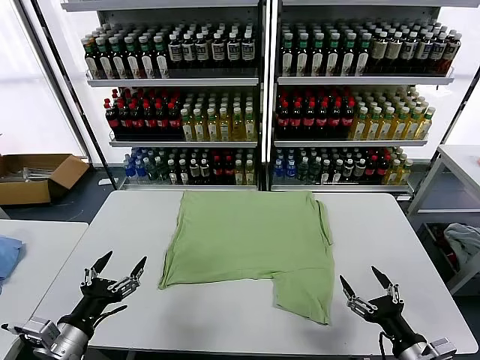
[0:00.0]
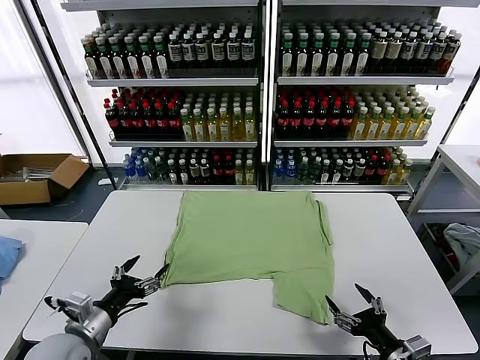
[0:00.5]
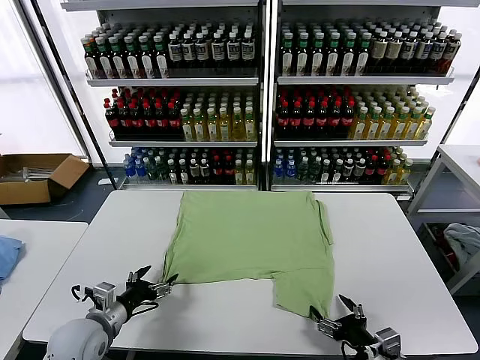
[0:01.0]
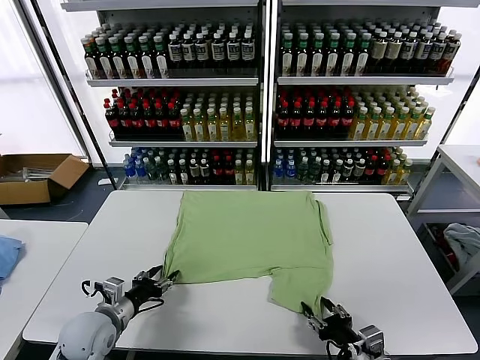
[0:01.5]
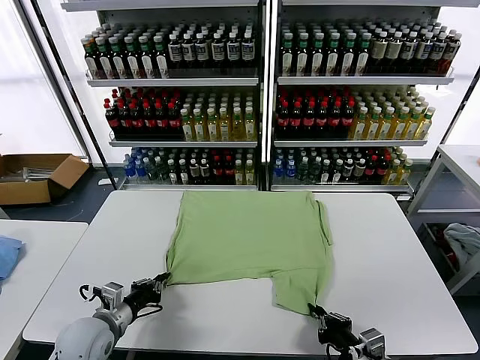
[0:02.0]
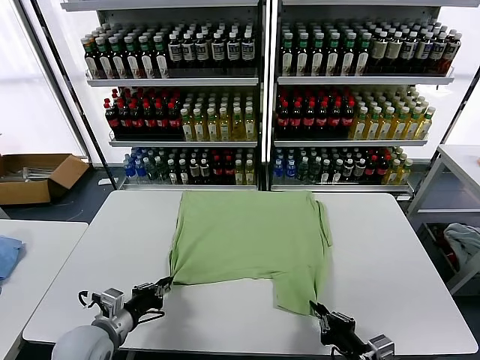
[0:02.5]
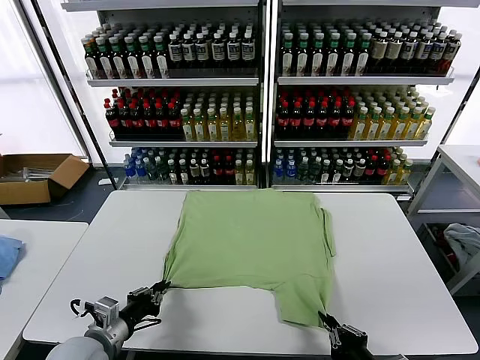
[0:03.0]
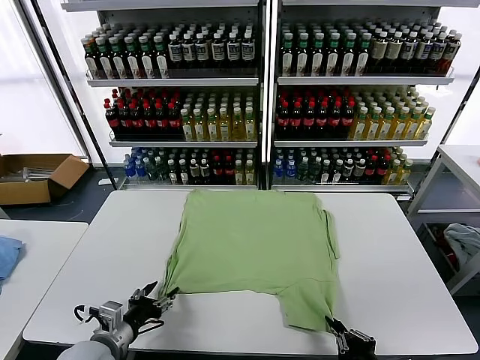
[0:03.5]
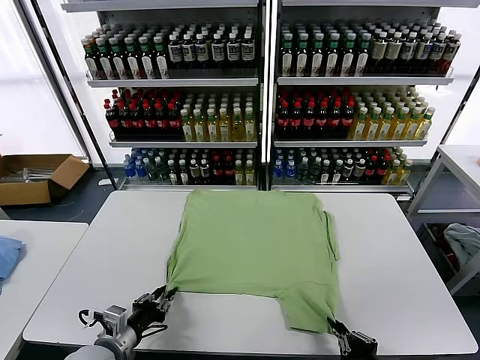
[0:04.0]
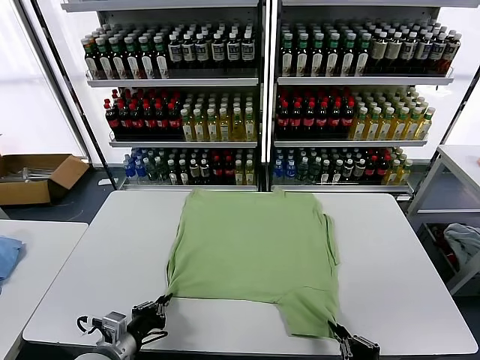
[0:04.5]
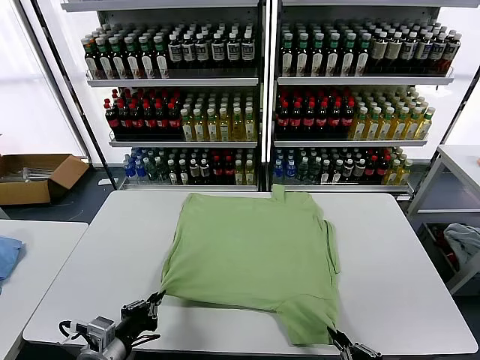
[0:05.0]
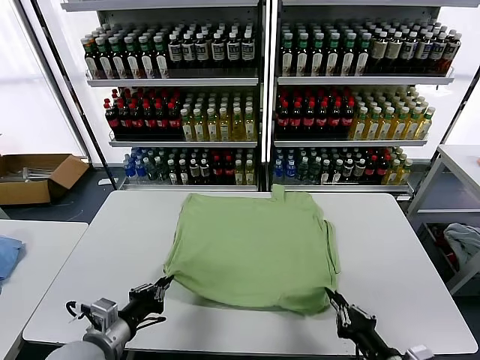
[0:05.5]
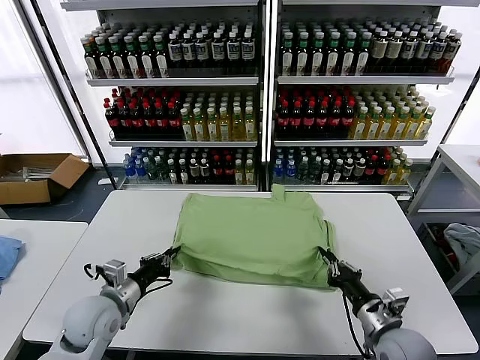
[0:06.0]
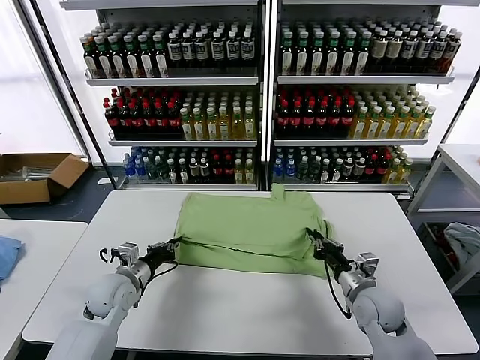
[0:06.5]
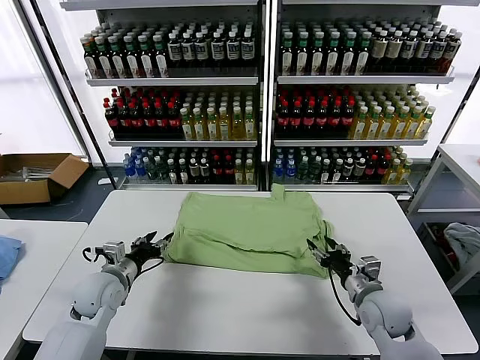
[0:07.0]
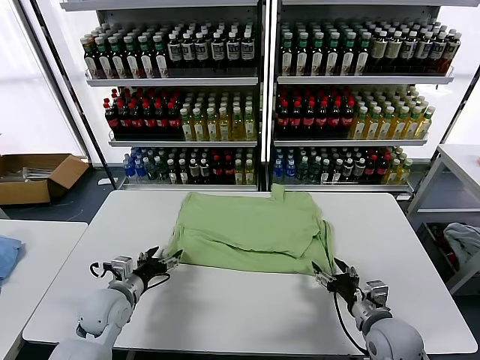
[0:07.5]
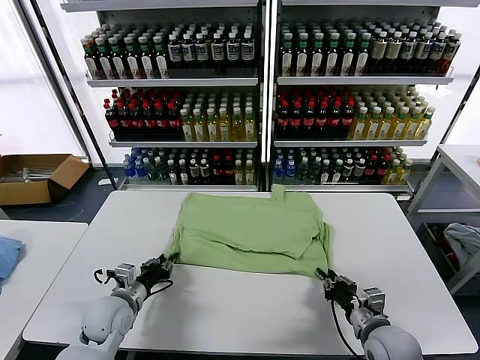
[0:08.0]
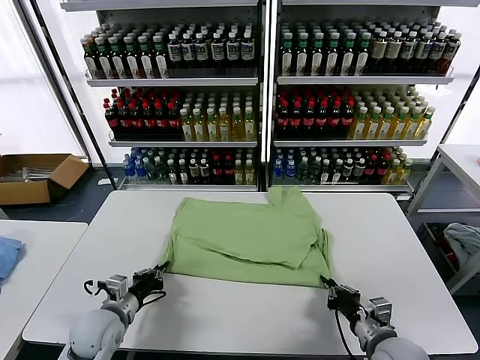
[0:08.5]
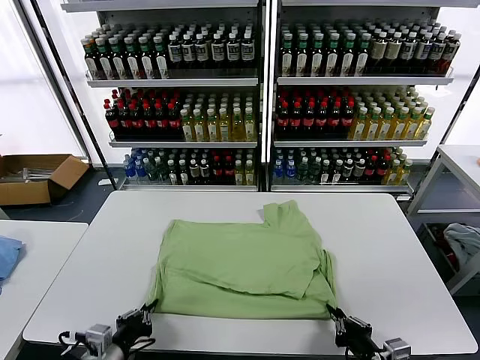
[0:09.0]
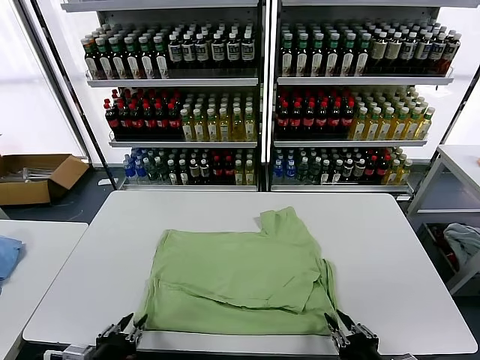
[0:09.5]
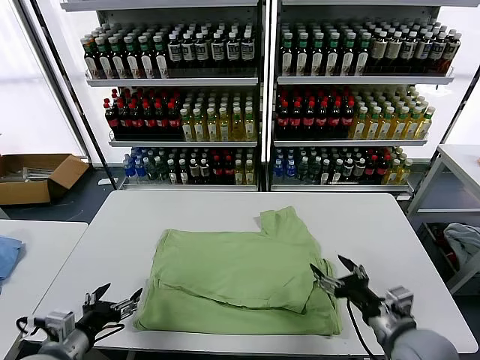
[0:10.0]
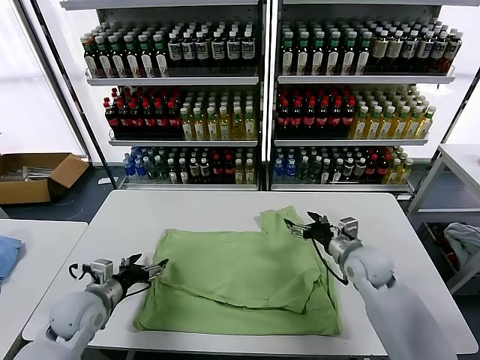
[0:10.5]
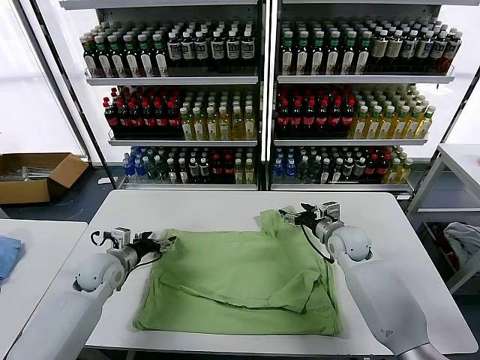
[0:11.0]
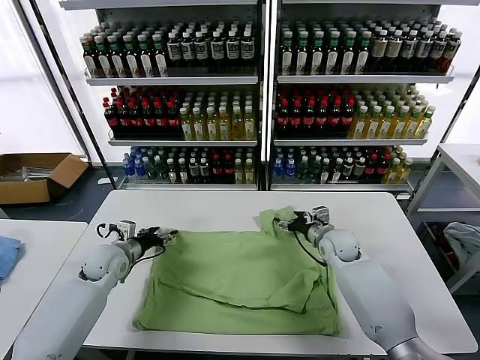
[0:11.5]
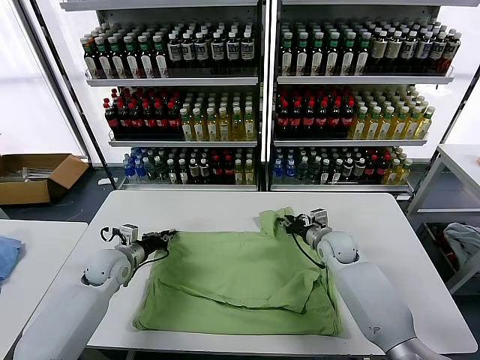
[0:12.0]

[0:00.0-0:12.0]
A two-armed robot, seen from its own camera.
Task of the whole recording: fold and organize the clothes.
Step, 0:00.0 to 0:04.0: use both grippers simultaneously to clamp the lower edge of the clothing fabric.
Step, 0:04.5 to 0:07.0: use both grippers to drag the lower edge of the fabric forward and fold it over the upper edge.
Step, 0:07.5 to 0:09.5: Drag the clothes downward with both gripper.
0:02.0 to 0:04.0: The two grippers go some 5 cm backward. The left gripper opens, then closes again.
0:04.0 to 0:06.0: The right gripper is displaced forward by approximately 15 cm. The left gripper is displaced forward by roughly 10 cm.
0:06.0 to 0:08.0: The right gripper moves roughly 5 cm forward and comes back, and opens, then closes again, while the left gripper moves downward, roughly 5 cm, and opens and closes again.
0:08.0 to 0:10.0: The left gripper heads backward and upward, covering some 15 cm, and opens its fingers. The right gripper is displaced upward by about 5 cm, reaches roughly 15 cm backward, then returns, and opens its fingers.
0:10.0 to 0:12.0: The two grippers go some 25 cm forward. The left gripper closes its fingers, while the right gripper closes up.

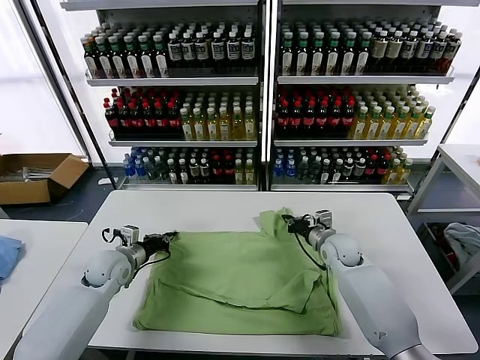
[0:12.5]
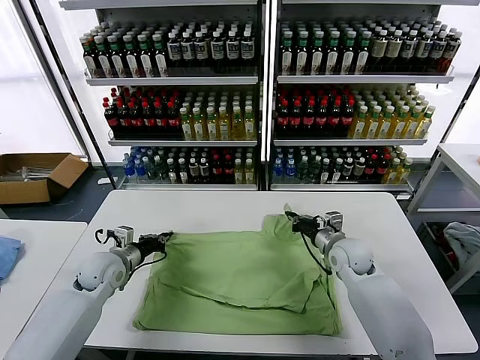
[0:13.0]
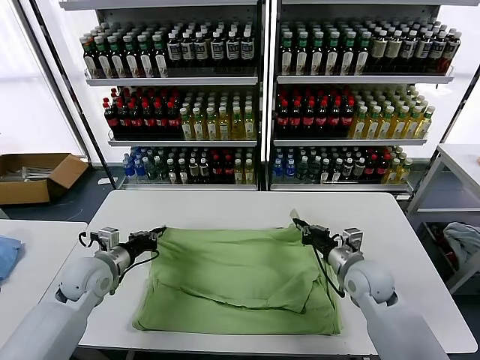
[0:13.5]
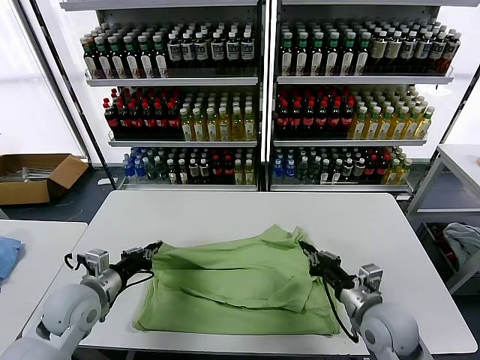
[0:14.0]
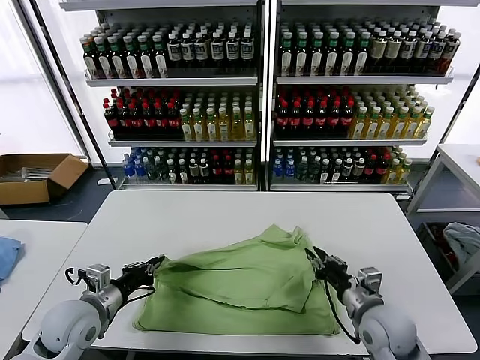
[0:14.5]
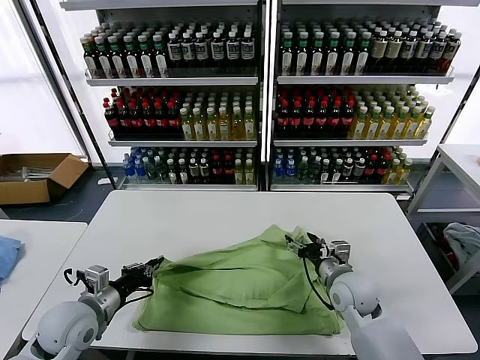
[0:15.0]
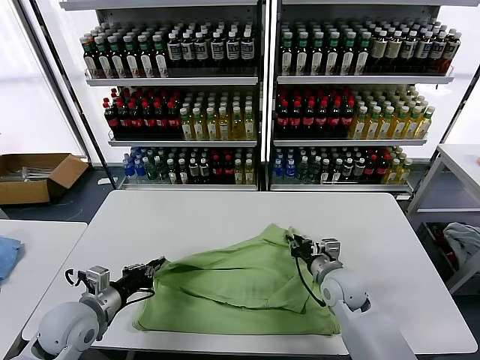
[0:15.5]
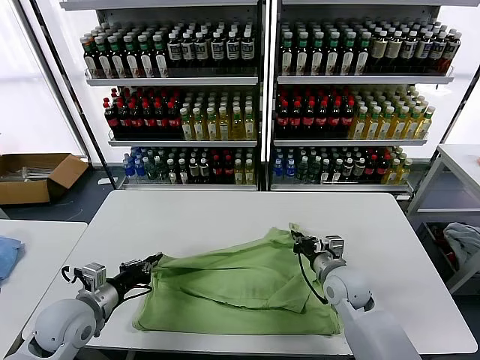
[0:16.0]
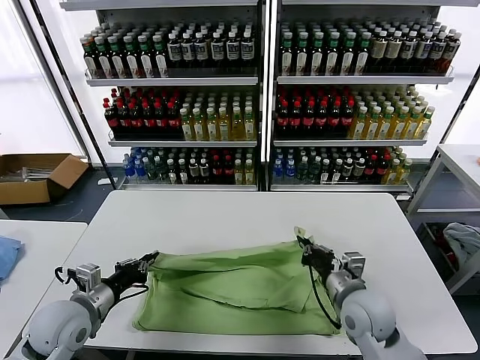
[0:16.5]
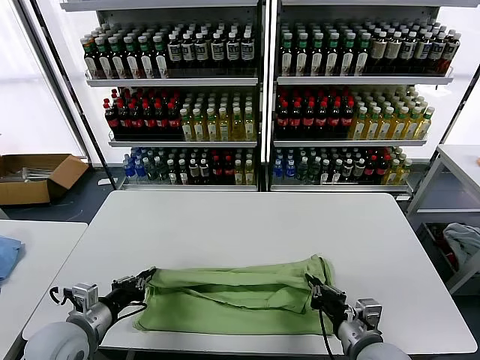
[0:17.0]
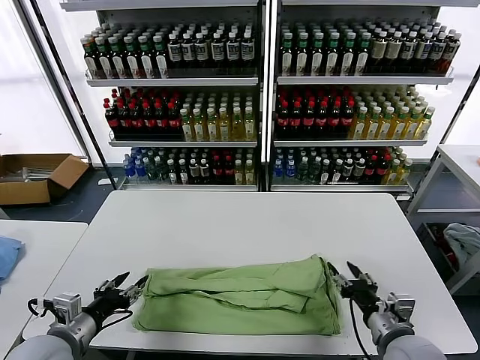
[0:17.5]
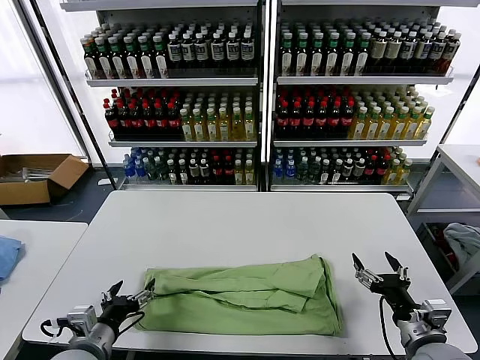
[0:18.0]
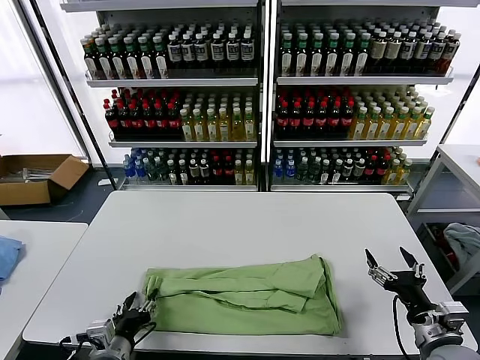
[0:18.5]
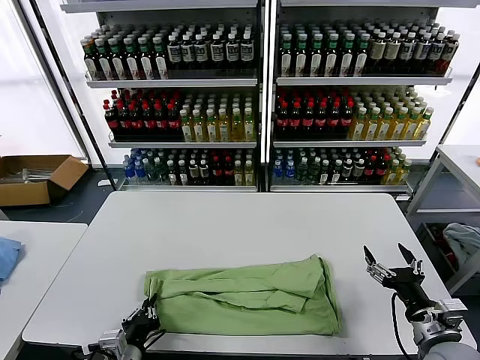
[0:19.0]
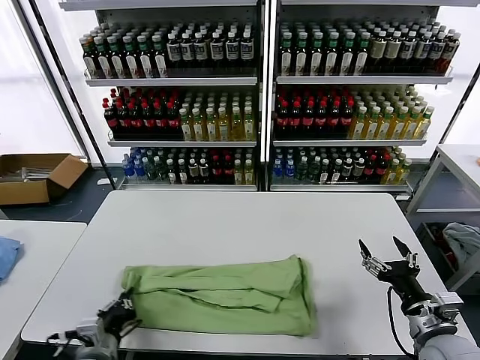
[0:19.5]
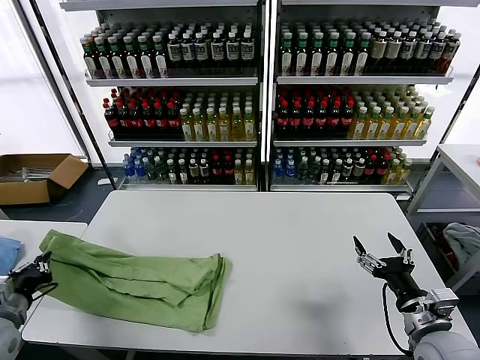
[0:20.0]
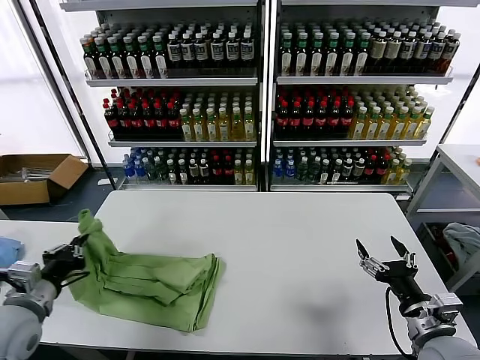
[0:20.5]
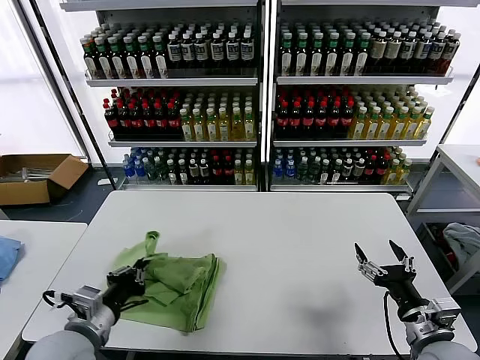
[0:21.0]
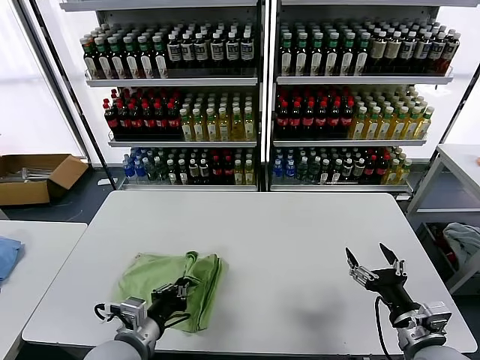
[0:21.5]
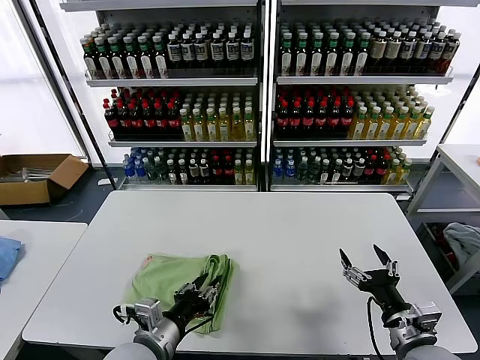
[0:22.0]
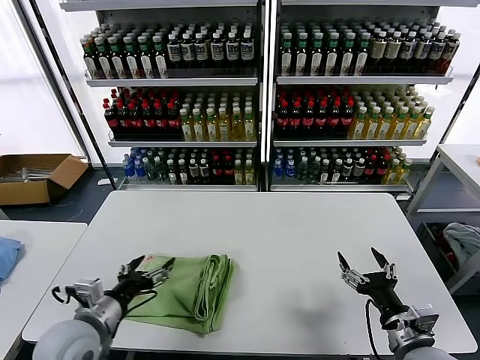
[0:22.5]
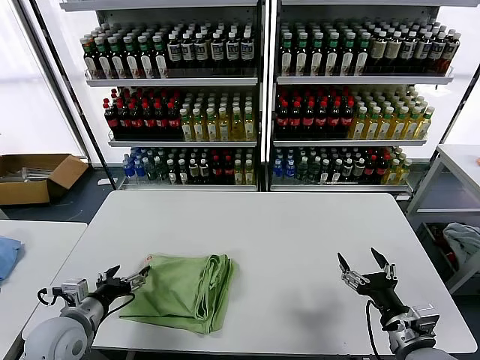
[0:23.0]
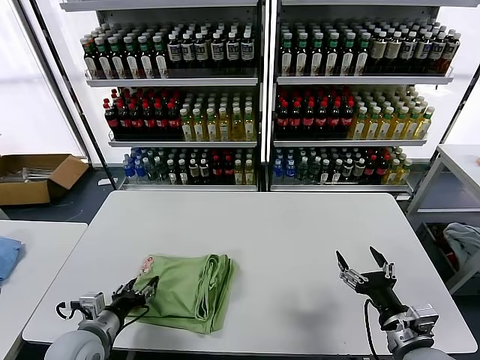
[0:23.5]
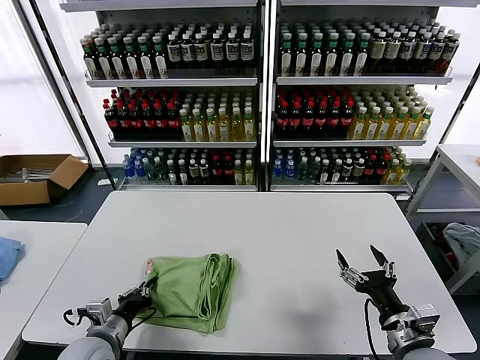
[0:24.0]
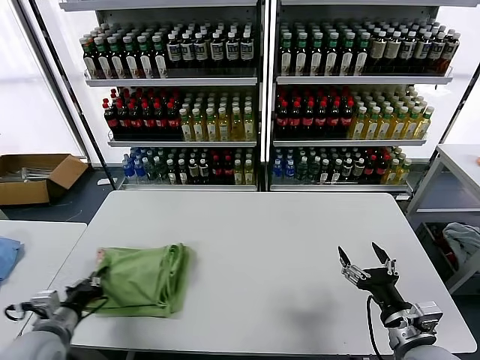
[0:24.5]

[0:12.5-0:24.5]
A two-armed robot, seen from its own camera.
Task of the whole recording: fold and organize the clothes.
Step, 0:12.5 to 0:17.0: use both grippers to drag the upper edge of the fabric backward and fold it over the lower edge.
Step, 0:18.0 to 0:19.0: use the left gripper to clamp the left edge of the fabric.
Step, 0:19.5 to 0:22.0: use the left gripper to drag the left edge of the fabric to the left and folds it over the right edge.
0:12.5 to 0:14.5: Both grippers move backward, approximately 15 cm. The right gripper opens.
0:14.5 to 0:16.5: The right gripper moves about 10 cm forward and comes back, and closes.
0:16.5 to 0:18.5: The right gripper is displaced to the right and backward by about 15 cm, and opens. The left gripper moves backward, to the right and downward, roughly 15 cm, and opens up.
0:18.5 to 0:20.5: The left gripper heads to the left, upward and forward, covering about 20 cm, and closes up.
0:20.5 to 0:22.5: The left gripper moves to the right, some 10 cm, and opens up.
0:22.5 to 0:24.5: The left gripper goes left and right, some 10 cm each way, reversing 2 times, and closes.

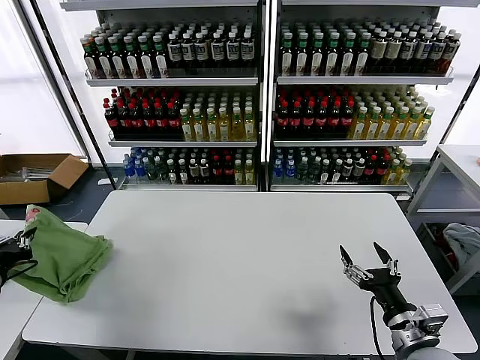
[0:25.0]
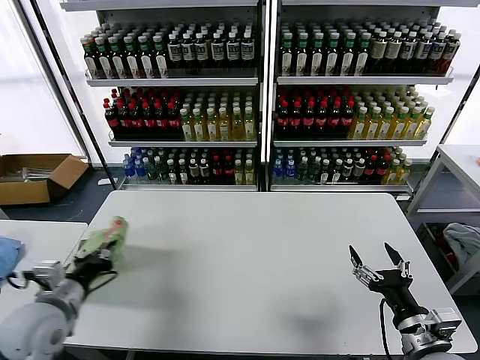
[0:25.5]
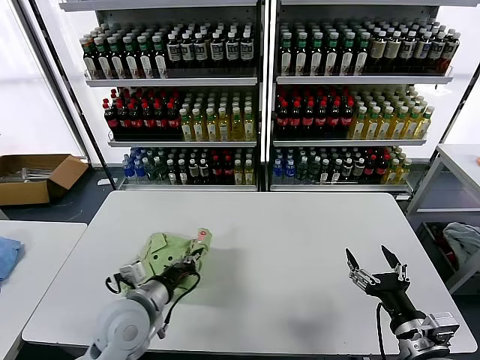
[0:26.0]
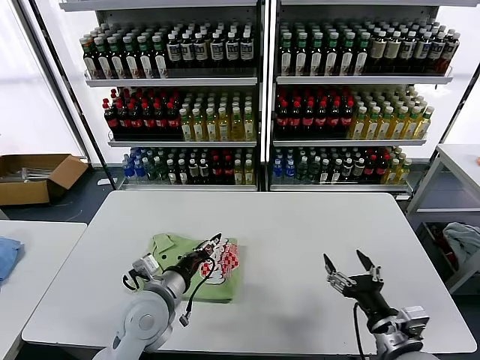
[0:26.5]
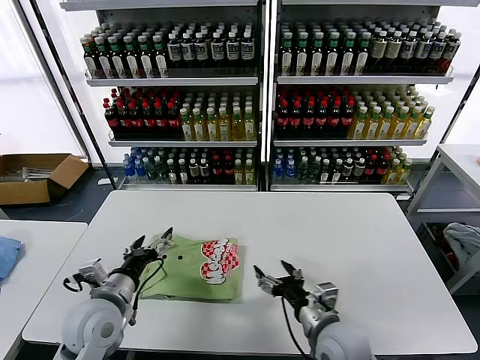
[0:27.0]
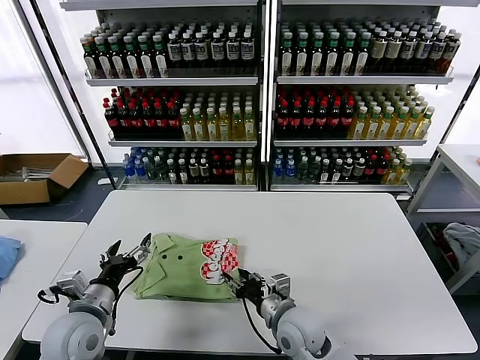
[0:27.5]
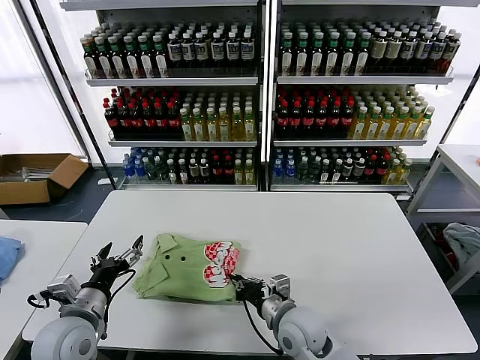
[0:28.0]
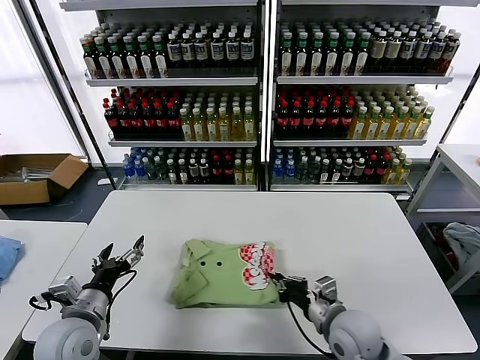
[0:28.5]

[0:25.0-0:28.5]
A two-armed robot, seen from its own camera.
Task of the whole recording: fold and organize the clothes.
0:25.0 to 0:27.0: The right gripper heads to the left and forward, covering some 15 cm. Meanwhile the left gripper goes roughly 25 cm to the right, and opens.
0:27.0 to 0:28.5: The left gripper shifts by approximately 5 cm. The right gripper reaches some 10 cm to the left, then returns, and closes.